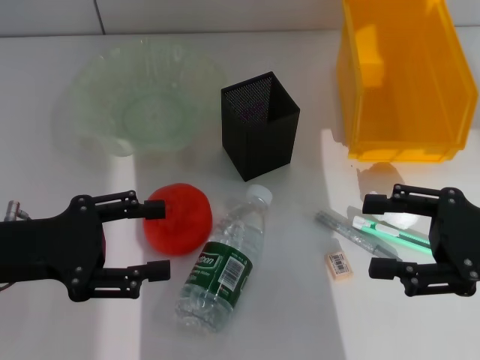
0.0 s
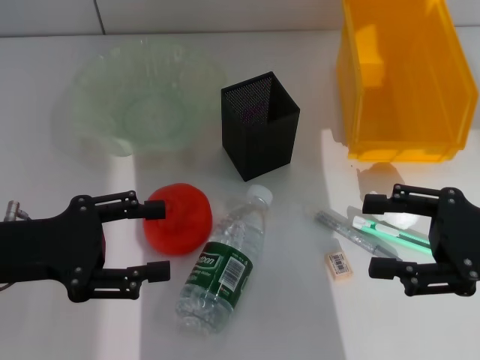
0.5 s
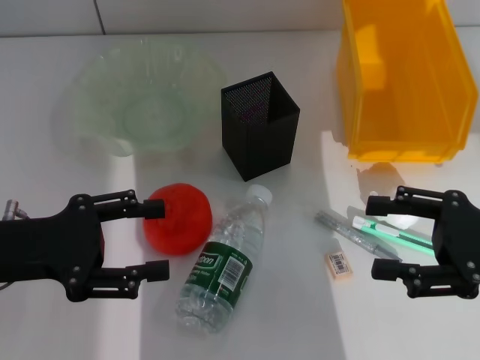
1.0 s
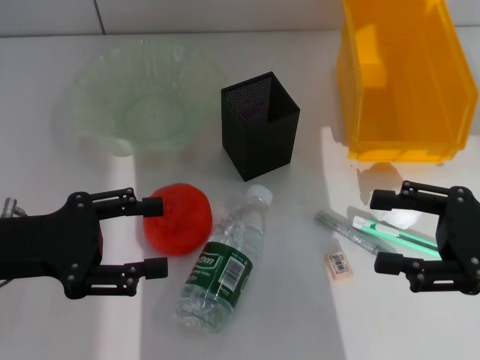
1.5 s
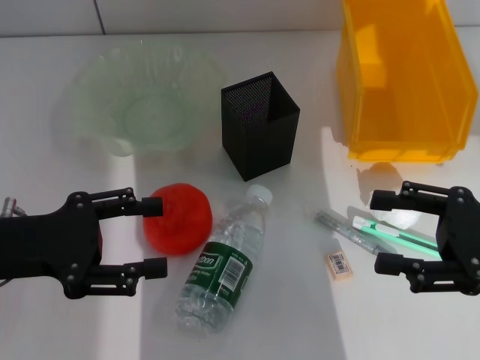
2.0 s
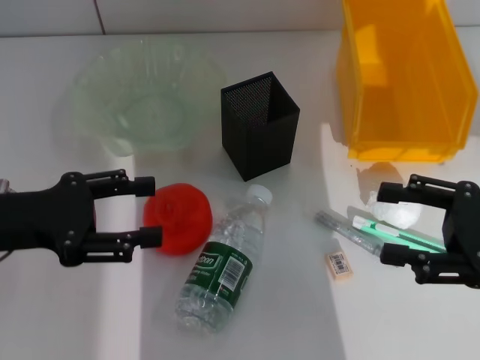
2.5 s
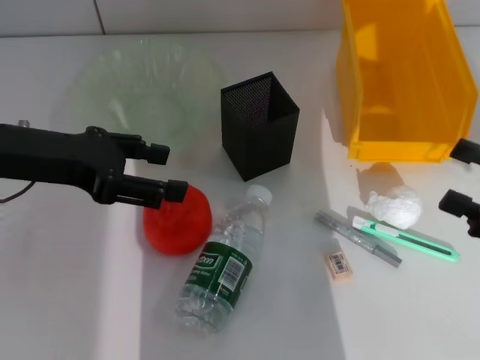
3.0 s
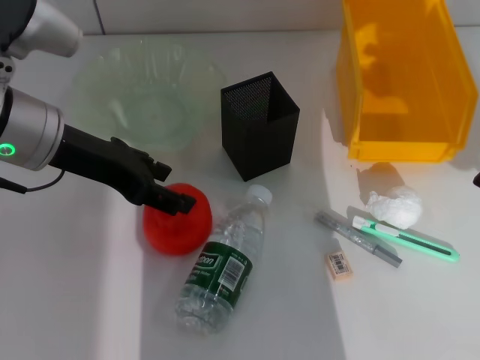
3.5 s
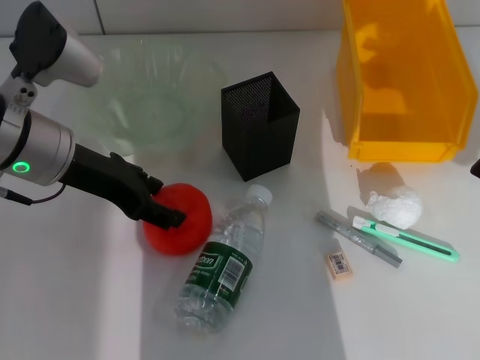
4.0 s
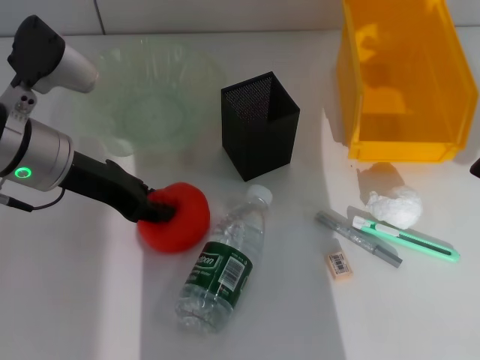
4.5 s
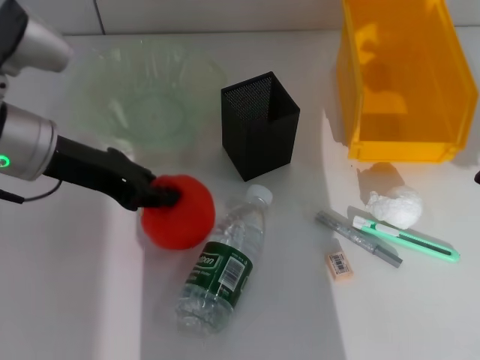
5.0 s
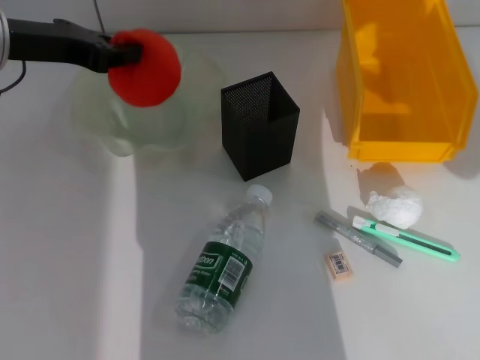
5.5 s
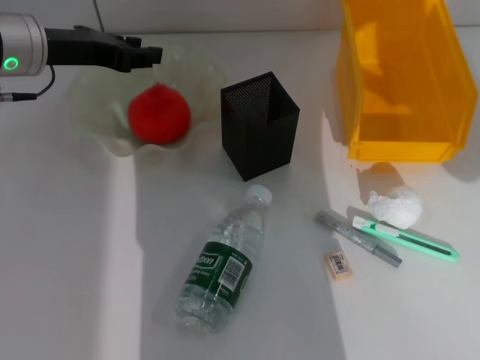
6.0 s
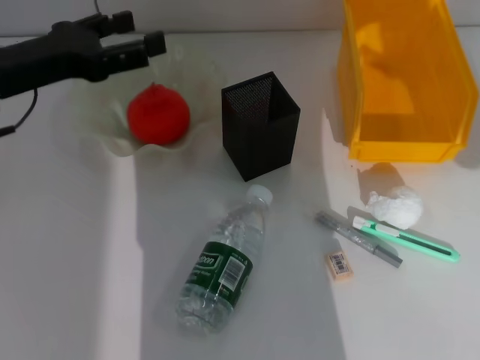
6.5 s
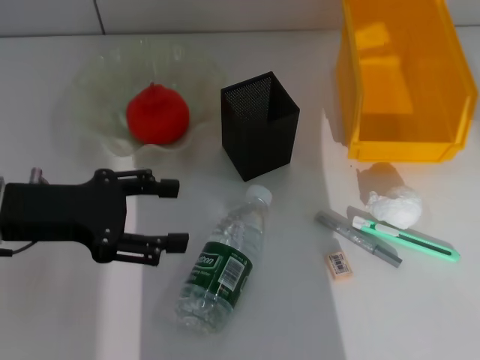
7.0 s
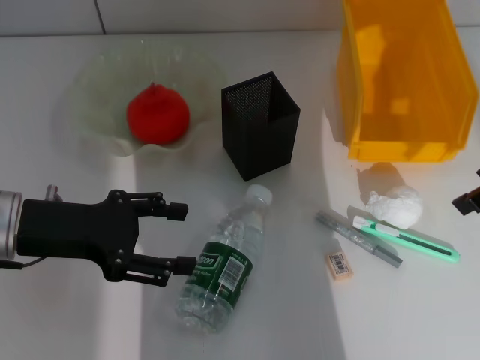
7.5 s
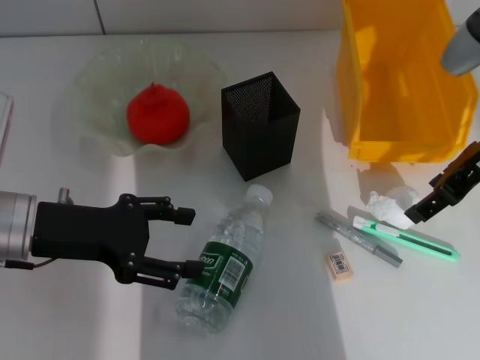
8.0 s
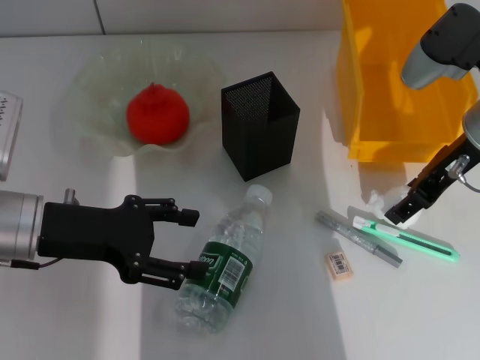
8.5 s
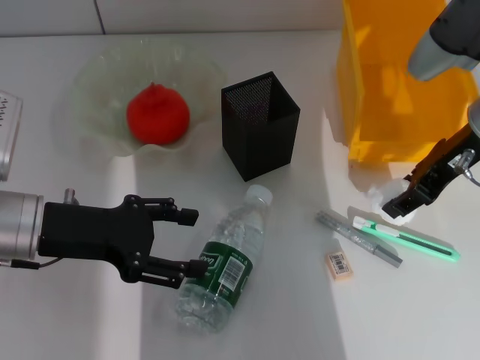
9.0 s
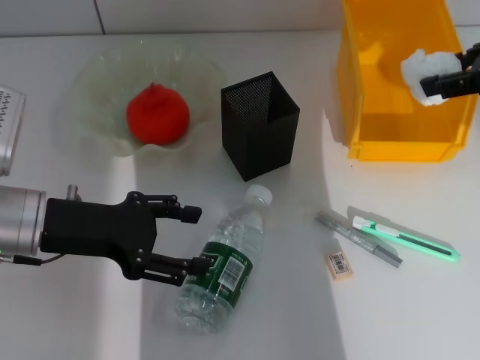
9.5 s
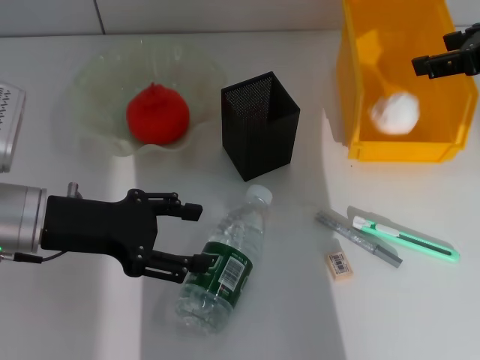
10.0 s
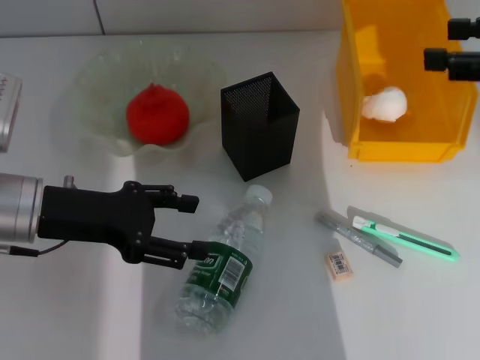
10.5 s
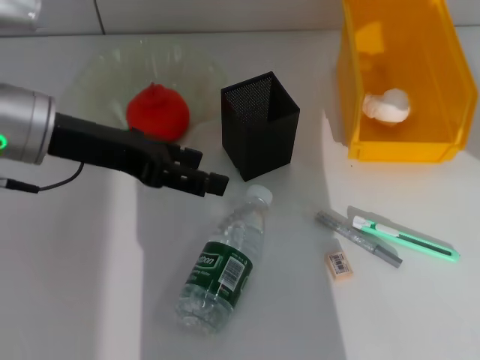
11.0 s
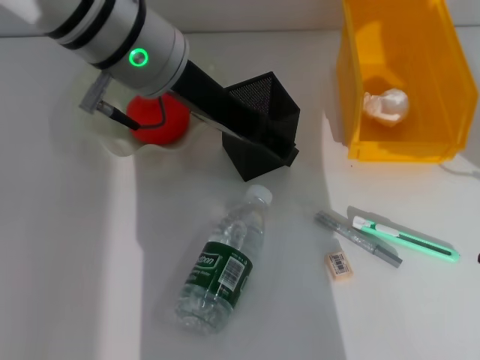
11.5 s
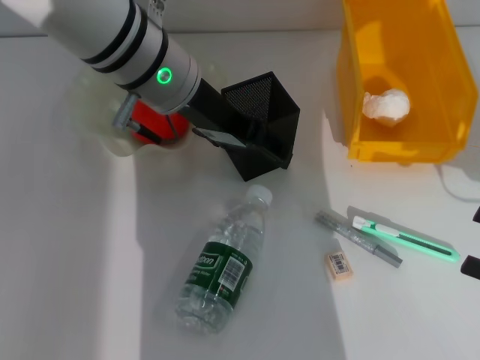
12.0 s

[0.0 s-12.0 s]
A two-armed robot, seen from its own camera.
Step, 0.0 to 4.5 s: Grab the orange with the left hand.
Step, 5.0 to 5.5 s: Place the orange into the fruit bowl with the left hand.
Step, 6.0 to 8.5 s: Grab the paper ball with the right hand.
Step, 9.0 to 10.0 s: Place the paper ball into the trash can with the right hand.
0.0 to 2.0 s: Both grippers stay put.
2.0 to 4.0 s: The right gripper moves to the right, about 5 cm, while the left gripper moves forward and to the right, approximately 10 cm.
4.0 to 6.0 s: The left gripper shifts some 5 cm forward, and closes up.
6.0 to 8.0 s: The right gripper shifts approximately 25 cm forward and to the left. The left gripper is displaced backward and downward by roughly 15 cm, and opens its fingers.
8.0 to 10.0 s: The right gripper travels upward by roughly 5 cm.
10.0 to 12.0 s: The left gripper moves to the right, upward and forward, some 20 cm, while the right gripper is displaced backward, downward and to the right by some 25 cm.

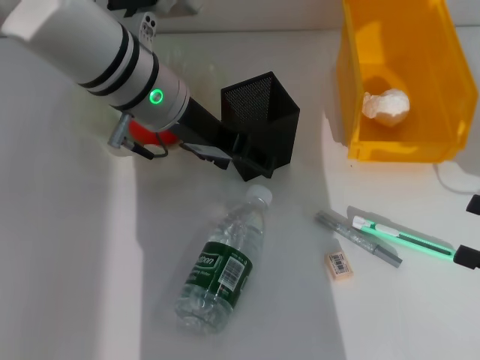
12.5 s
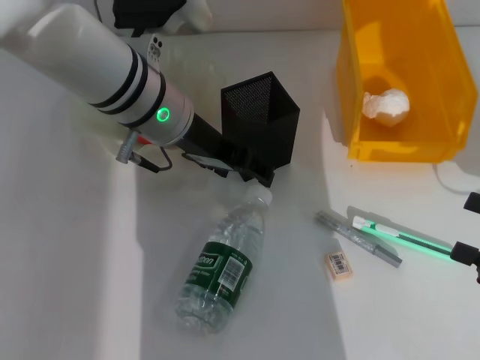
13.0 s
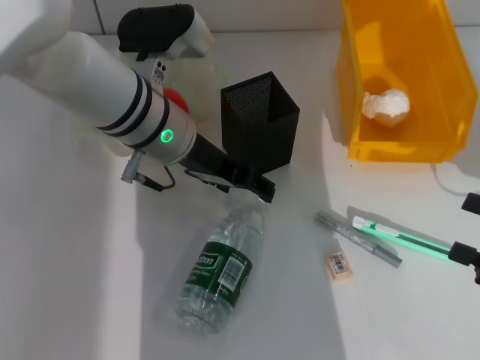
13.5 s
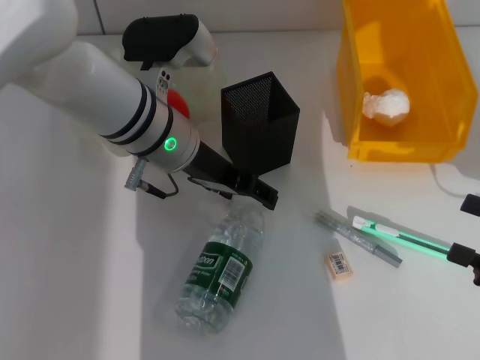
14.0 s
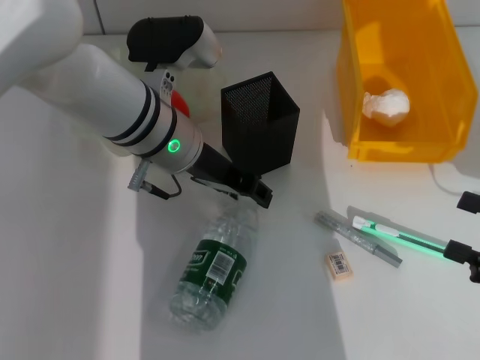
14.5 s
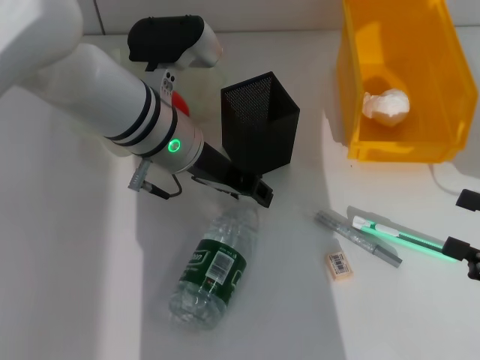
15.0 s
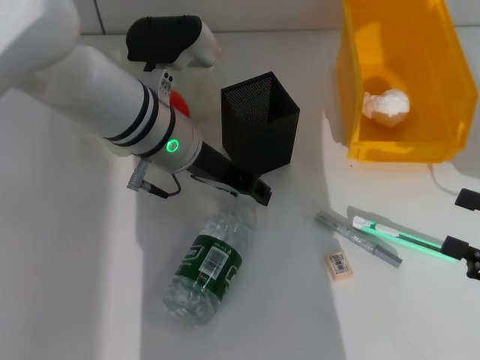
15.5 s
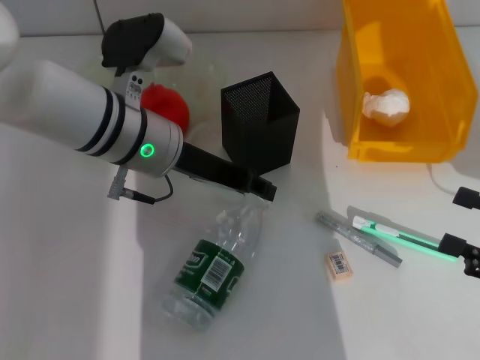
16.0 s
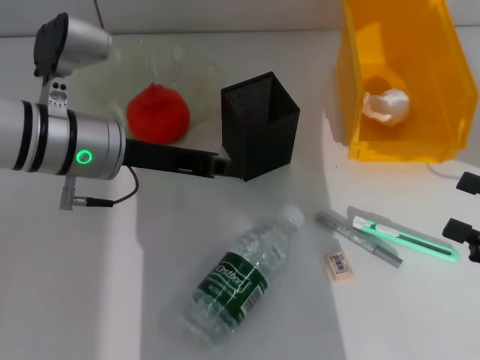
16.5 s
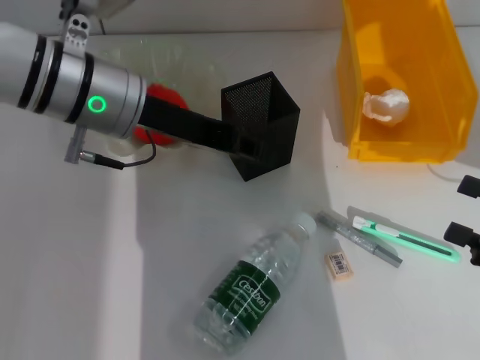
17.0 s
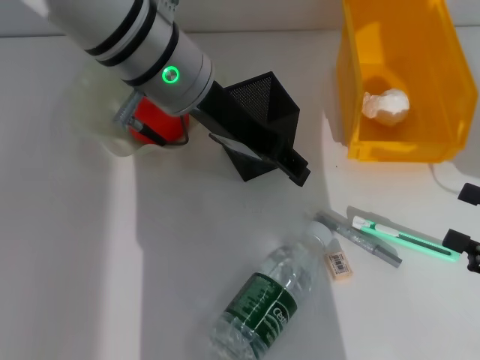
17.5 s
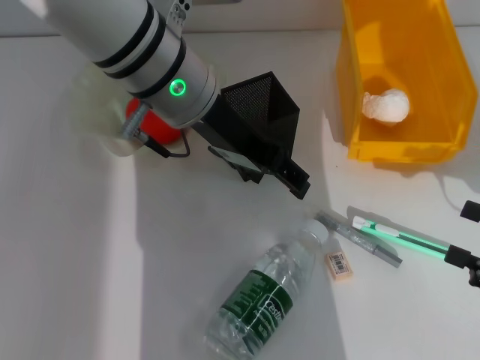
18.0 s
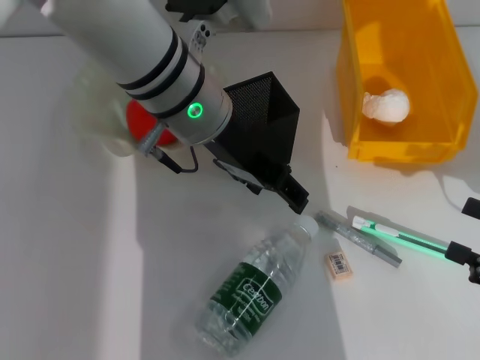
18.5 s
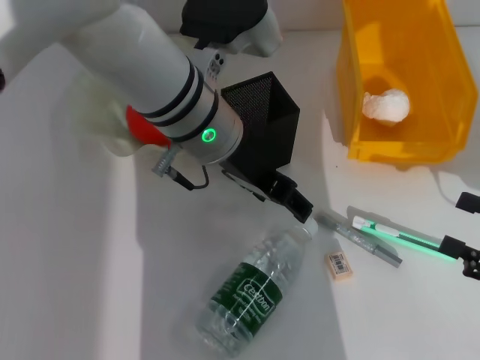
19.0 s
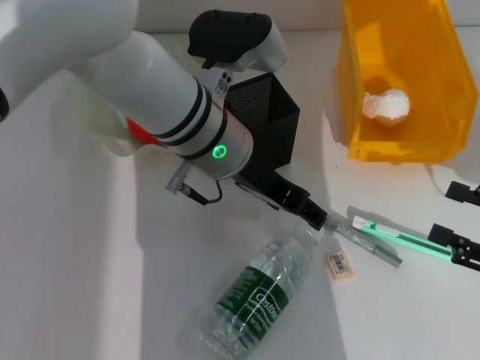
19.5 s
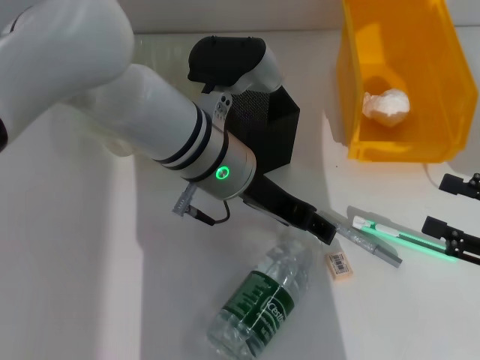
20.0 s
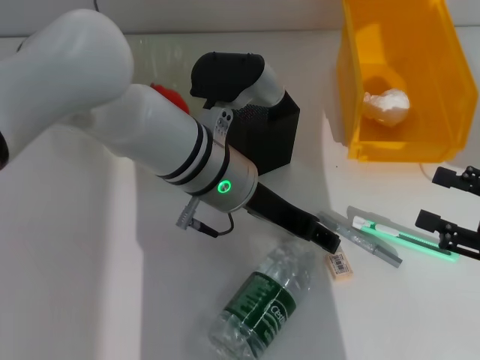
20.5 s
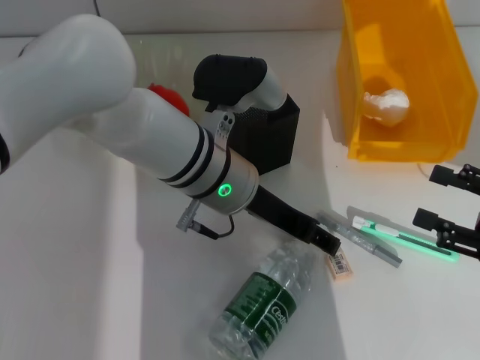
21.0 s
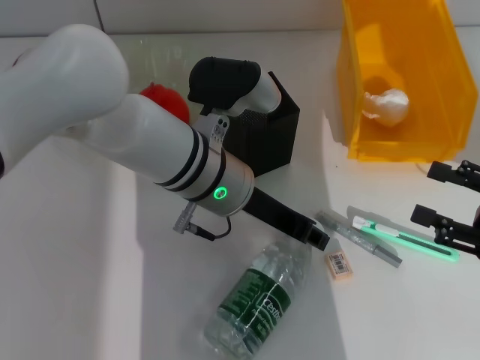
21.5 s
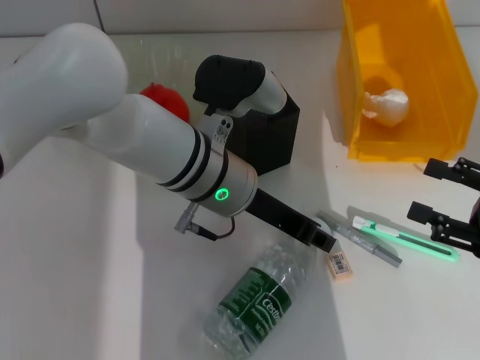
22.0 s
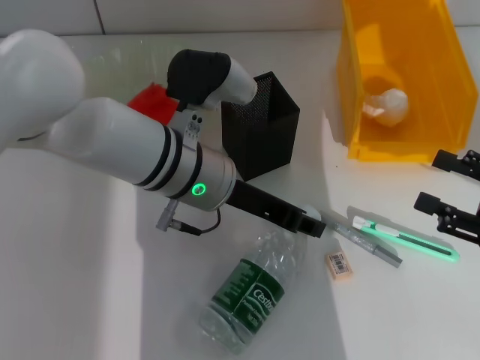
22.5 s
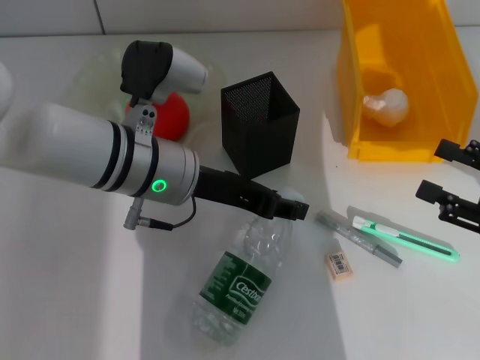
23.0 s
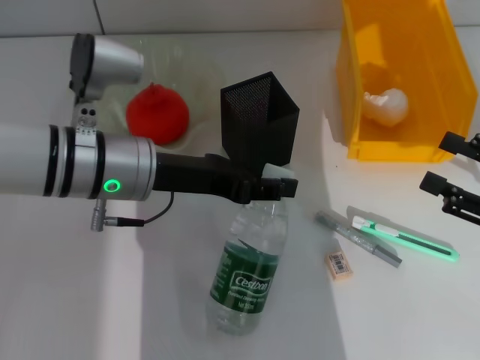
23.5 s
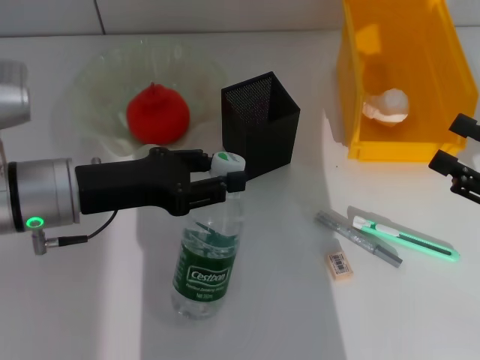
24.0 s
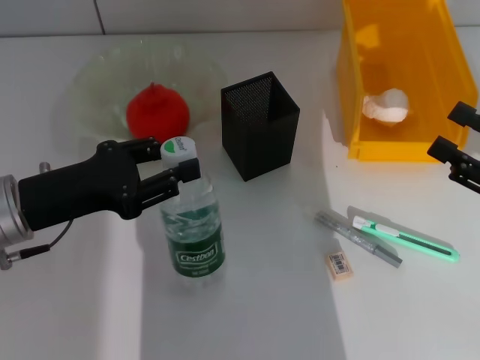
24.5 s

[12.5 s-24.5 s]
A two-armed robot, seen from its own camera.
Step, 12.5 to 21.5 s: Grab the water bottle with the left hand.
12.5 to 14.5 s: There are only small adjustments of the grippers.
14.5 to 16.5 s: The left gripper heads to the left, covering roughly 10 cm, and closes up.
16.5 to 18.5 s: The left gripper is displaced to the right and upward by approximately 10 cm, and opens up.
18.5 to 20.5 s: The left gripper is displaced downward by approximately 5 cm.
20.5 to 22.5 s: There are only small adjustments of the grippers.
22.5 to 24.5 s: The left gripper shifts about 20 cm to the left.

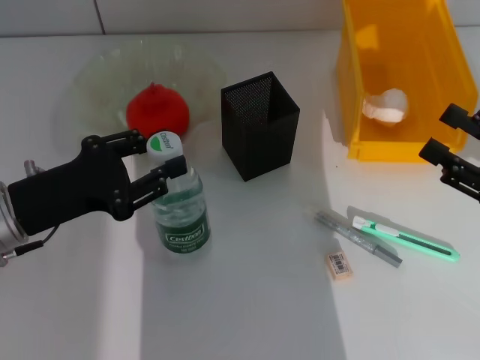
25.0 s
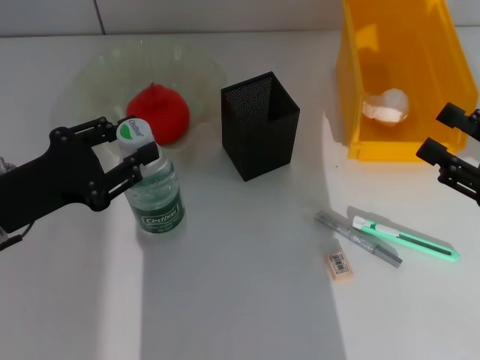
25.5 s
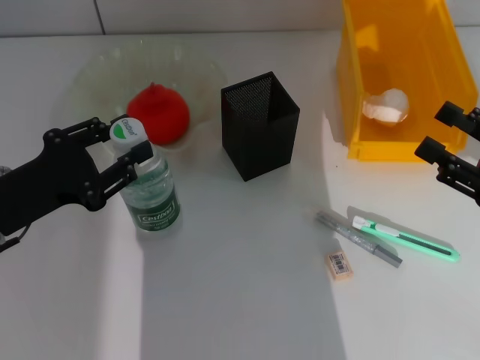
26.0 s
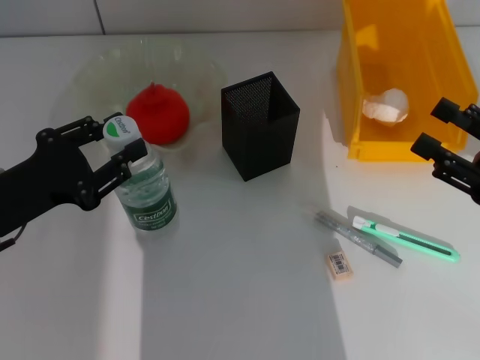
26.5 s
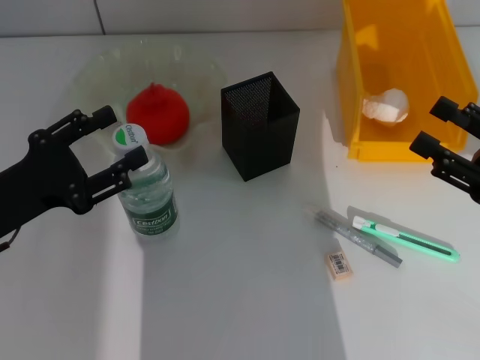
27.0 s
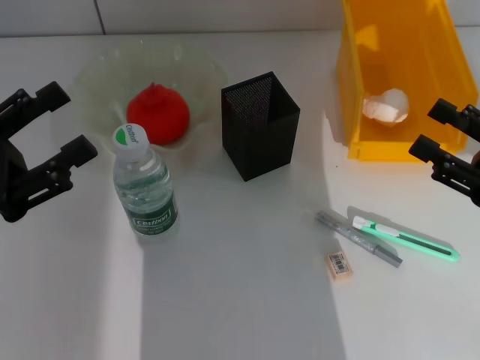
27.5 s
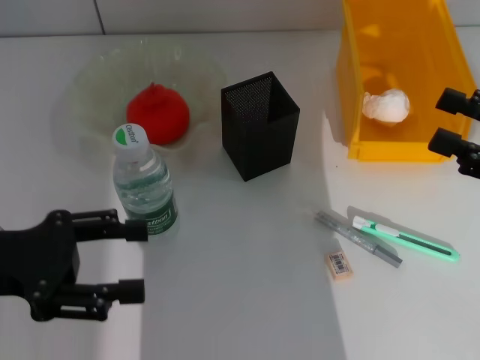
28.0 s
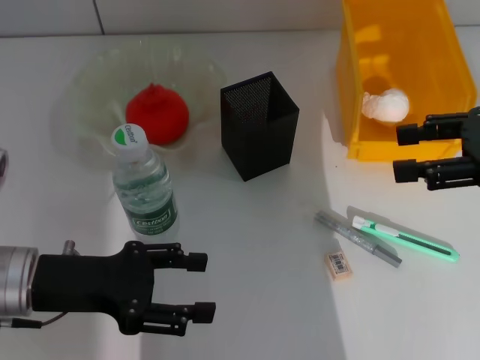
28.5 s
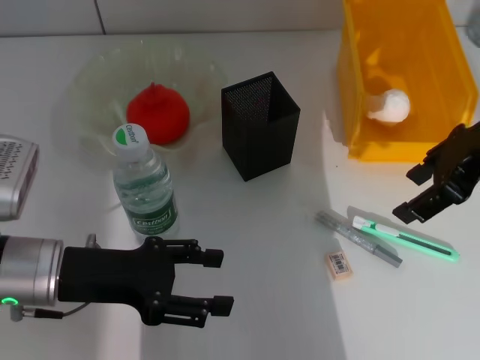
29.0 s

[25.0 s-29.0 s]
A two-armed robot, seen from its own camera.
25.0 to 27.0 s: The left gripper opens its fingers.
27.0 to 29.0 s: The right gripper heads upward, forward and to the left, covering roughly 20 cm. The left gripper travels to the right by approximately 5 cm.
